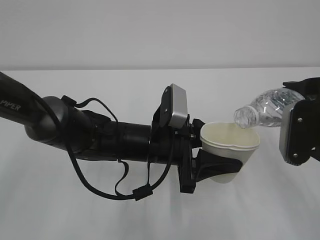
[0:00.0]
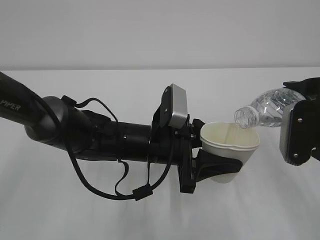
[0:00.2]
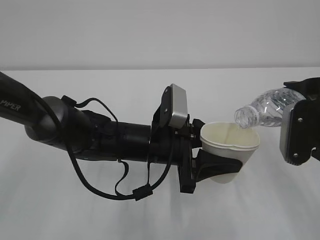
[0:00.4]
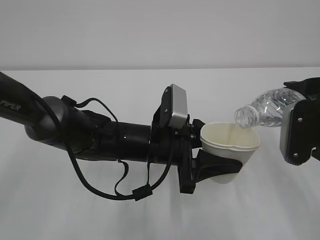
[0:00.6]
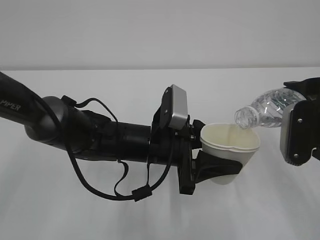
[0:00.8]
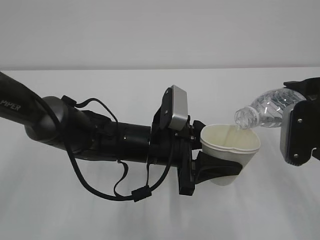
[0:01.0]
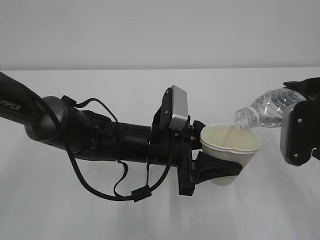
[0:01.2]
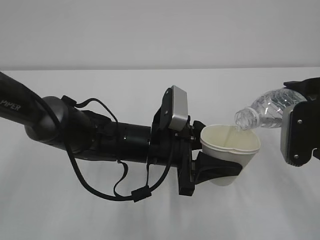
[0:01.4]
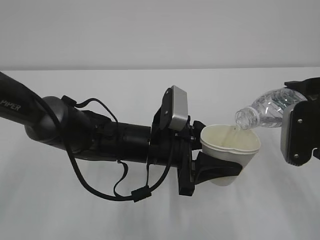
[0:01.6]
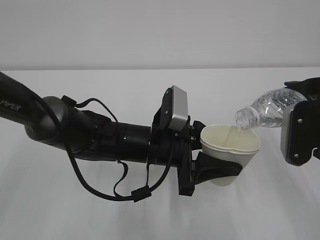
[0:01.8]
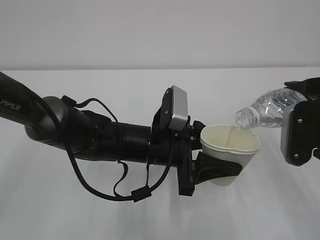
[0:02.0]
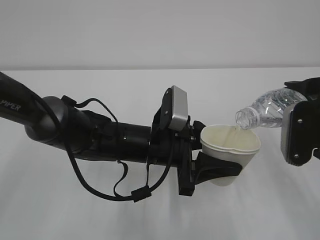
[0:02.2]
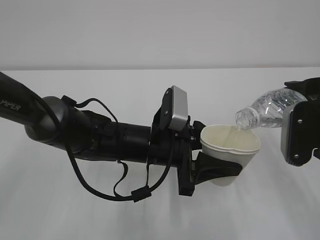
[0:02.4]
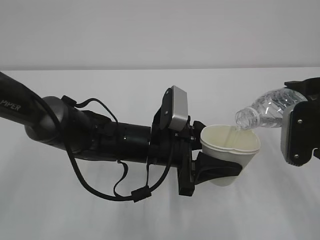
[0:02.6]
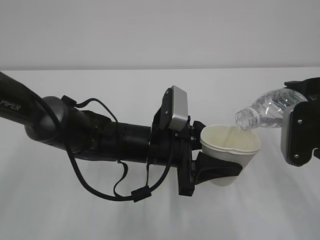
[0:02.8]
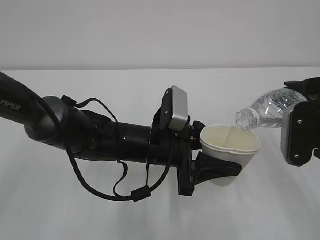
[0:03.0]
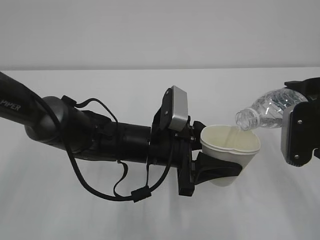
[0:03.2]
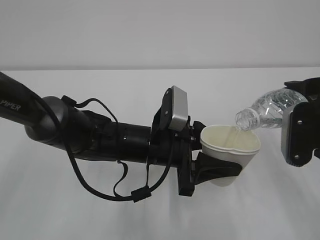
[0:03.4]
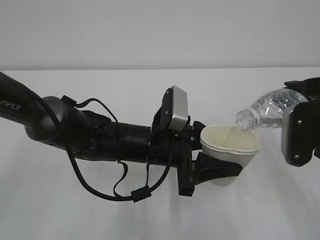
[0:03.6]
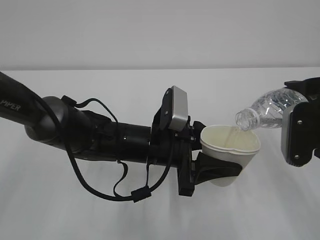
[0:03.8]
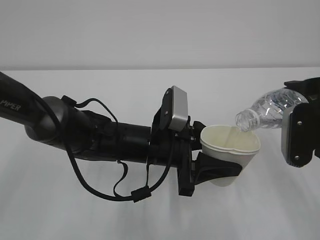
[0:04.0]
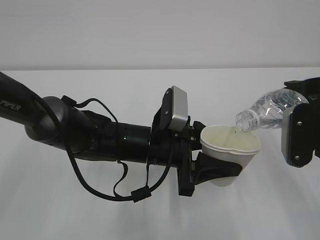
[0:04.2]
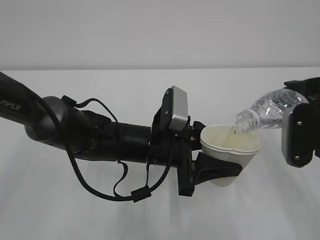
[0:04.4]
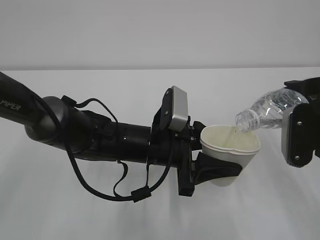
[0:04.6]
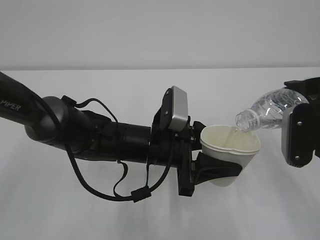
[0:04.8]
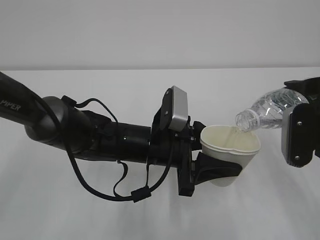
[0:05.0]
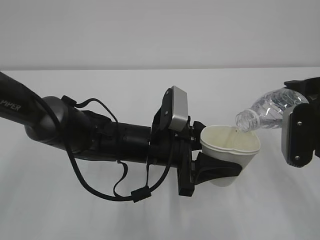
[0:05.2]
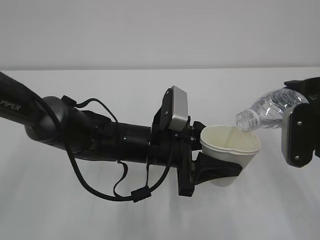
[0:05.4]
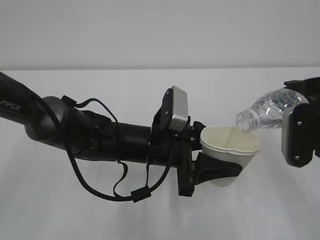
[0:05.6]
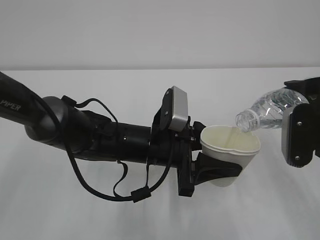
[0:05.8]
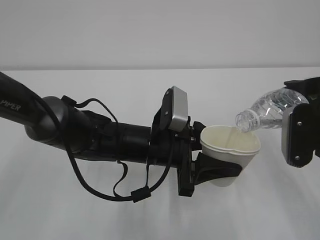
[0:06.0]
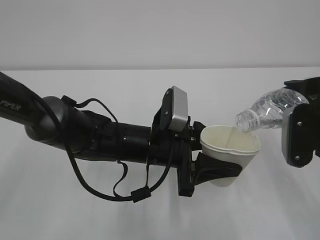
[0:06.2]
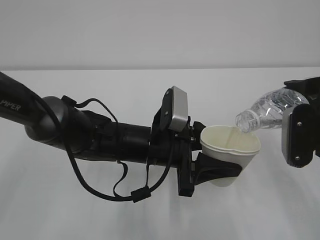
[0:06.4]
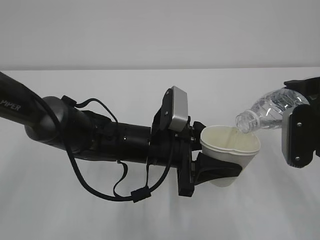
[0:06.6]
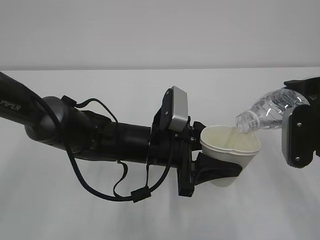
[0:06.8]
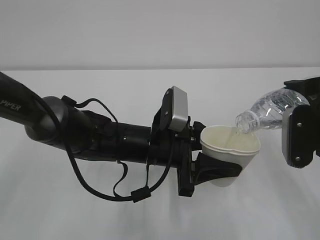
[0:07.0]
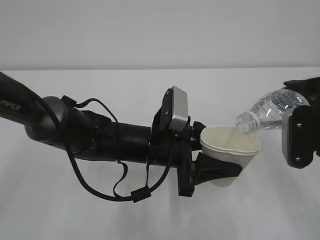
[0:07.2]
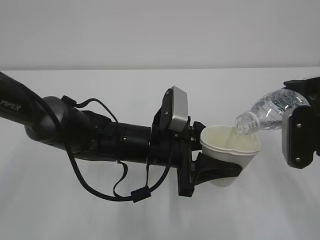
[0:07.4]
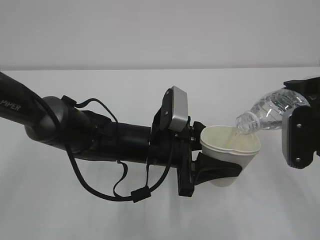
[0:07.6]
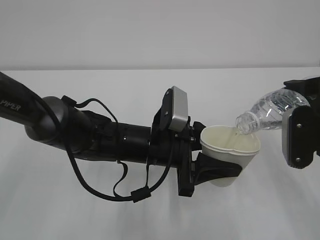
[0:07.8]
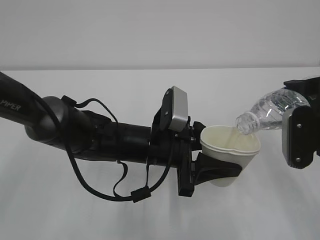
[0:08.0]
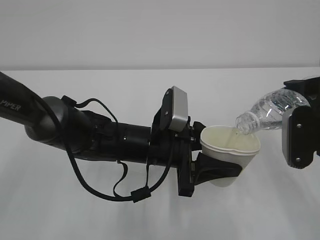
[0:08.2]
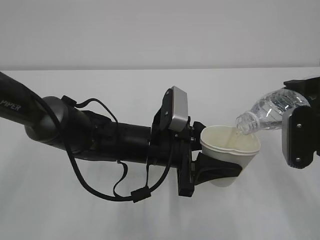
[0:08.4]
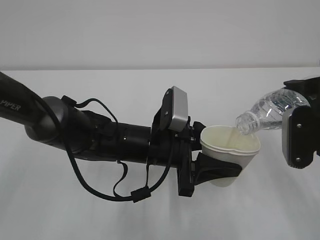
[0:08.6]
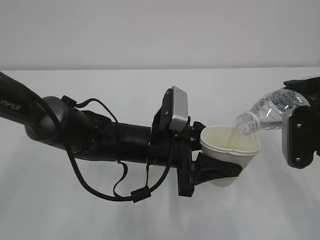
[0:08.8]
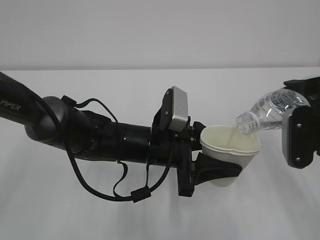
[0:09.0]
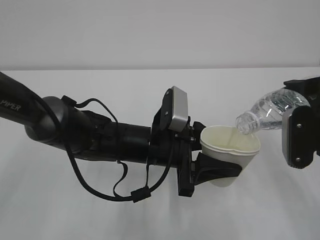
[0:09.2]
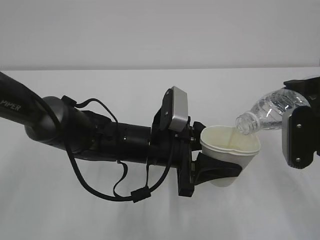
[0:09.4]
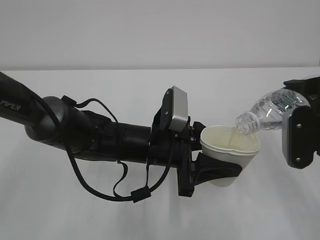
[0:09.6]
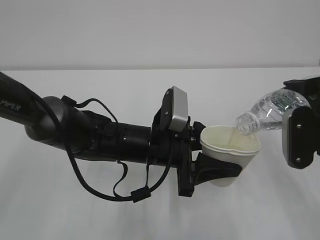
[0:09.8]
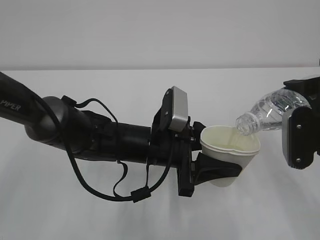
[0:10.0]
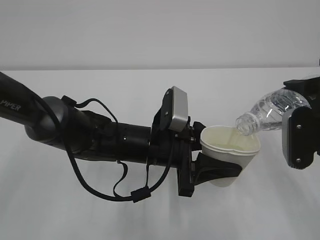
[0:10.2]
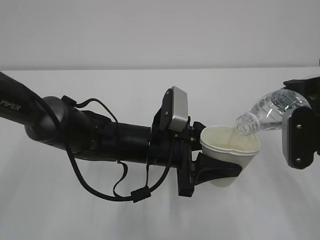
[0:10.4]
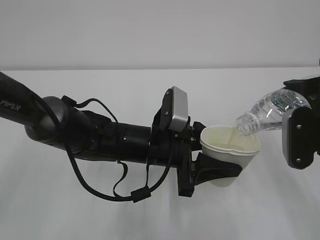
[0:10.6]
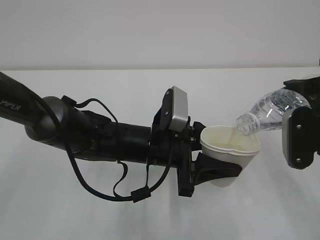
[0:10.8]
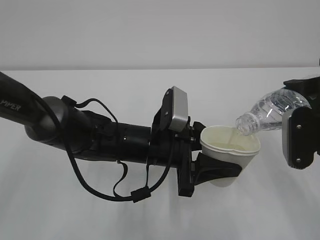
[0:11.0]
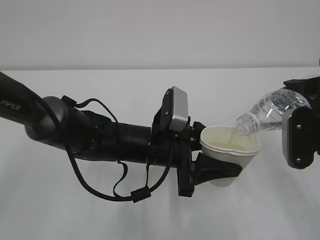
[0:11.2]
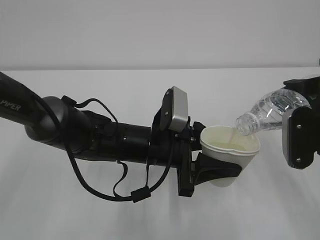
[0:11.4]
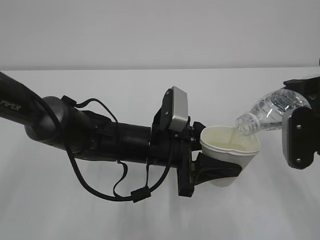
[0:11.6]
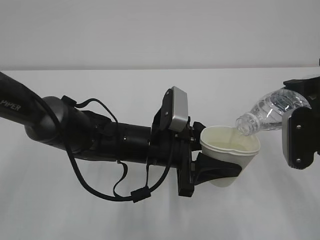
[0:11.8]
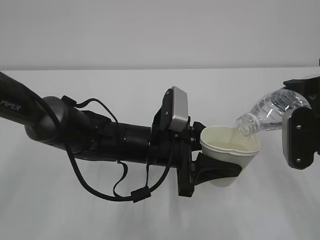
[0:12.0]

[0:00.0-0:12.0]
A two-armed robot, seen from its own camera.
0:00.0 to 0:06.0: Neither gripper changes place.
0:06.0 to 0:12.0: The two grippers keep their place.

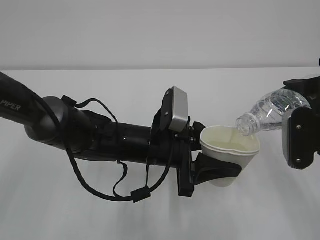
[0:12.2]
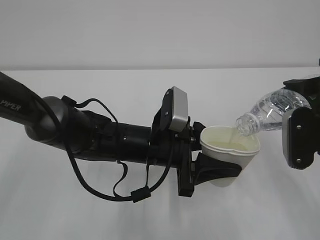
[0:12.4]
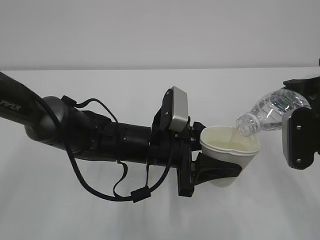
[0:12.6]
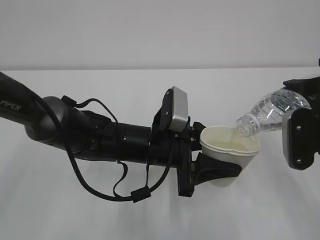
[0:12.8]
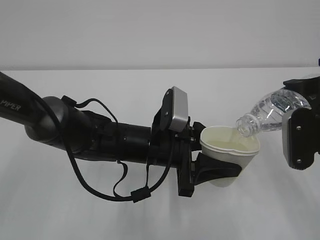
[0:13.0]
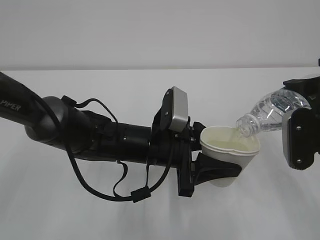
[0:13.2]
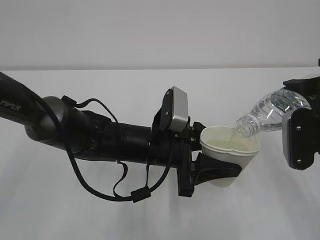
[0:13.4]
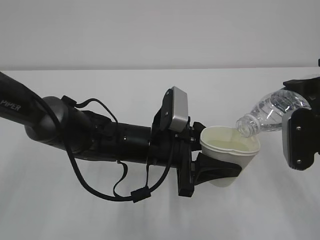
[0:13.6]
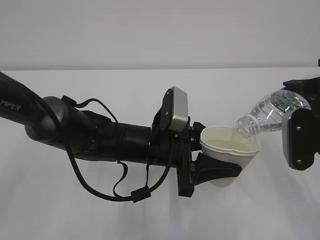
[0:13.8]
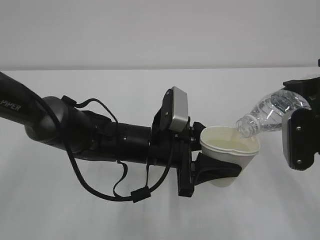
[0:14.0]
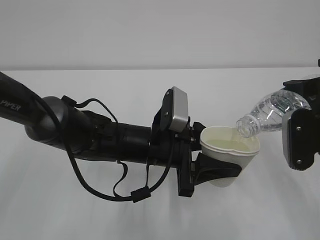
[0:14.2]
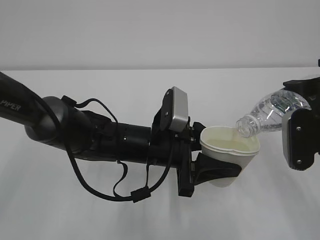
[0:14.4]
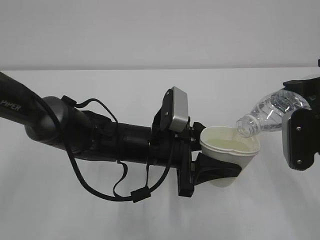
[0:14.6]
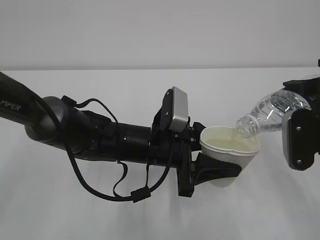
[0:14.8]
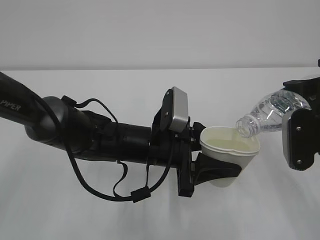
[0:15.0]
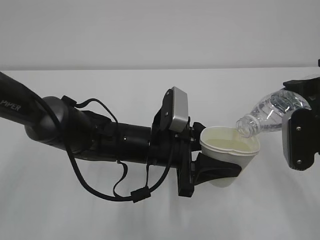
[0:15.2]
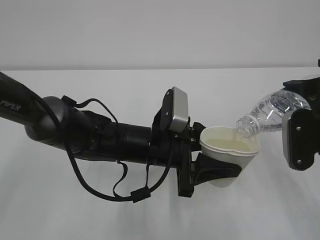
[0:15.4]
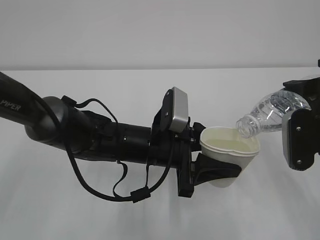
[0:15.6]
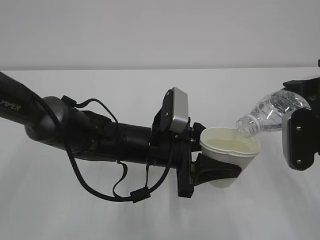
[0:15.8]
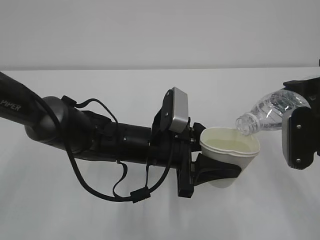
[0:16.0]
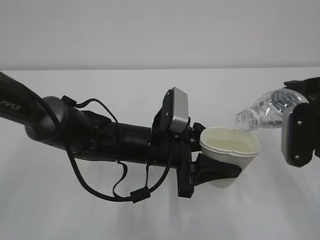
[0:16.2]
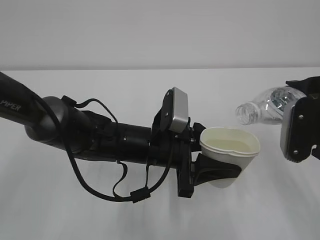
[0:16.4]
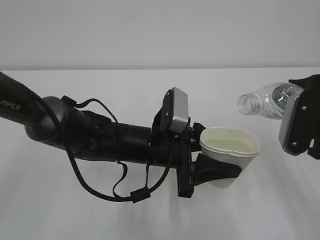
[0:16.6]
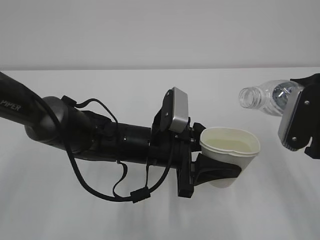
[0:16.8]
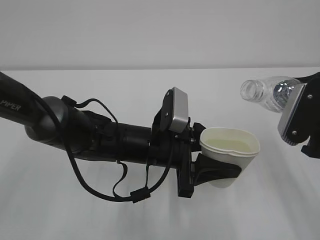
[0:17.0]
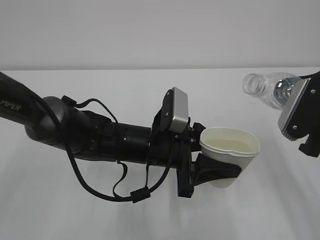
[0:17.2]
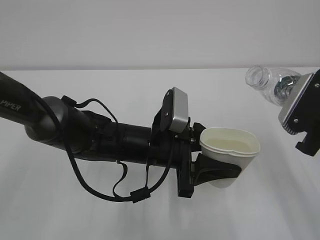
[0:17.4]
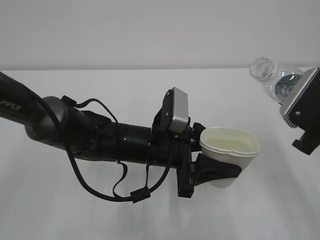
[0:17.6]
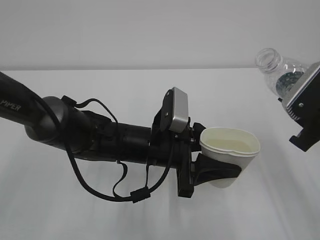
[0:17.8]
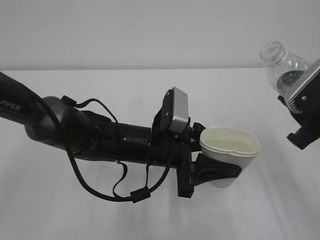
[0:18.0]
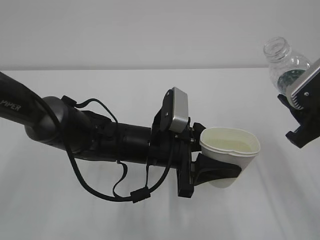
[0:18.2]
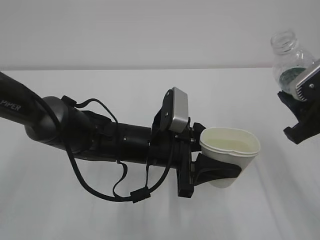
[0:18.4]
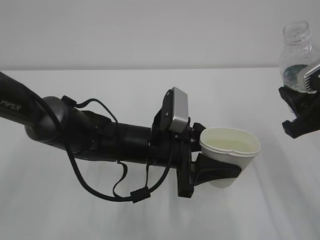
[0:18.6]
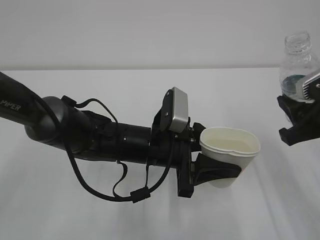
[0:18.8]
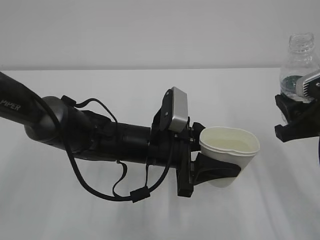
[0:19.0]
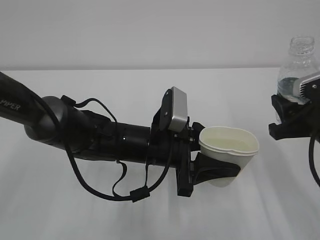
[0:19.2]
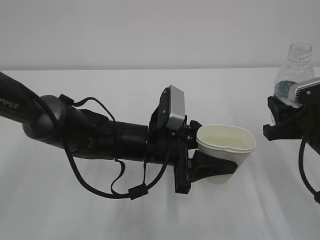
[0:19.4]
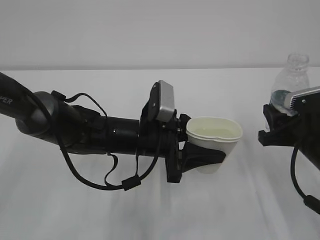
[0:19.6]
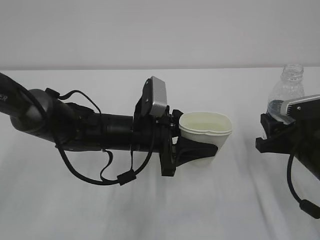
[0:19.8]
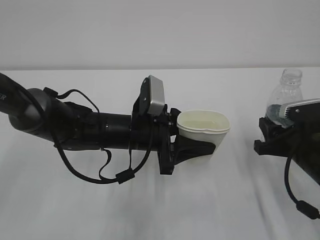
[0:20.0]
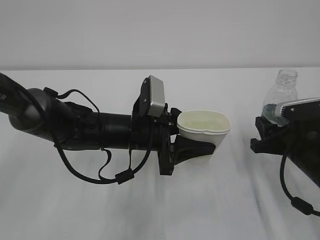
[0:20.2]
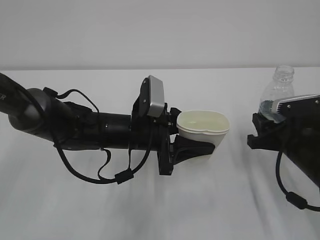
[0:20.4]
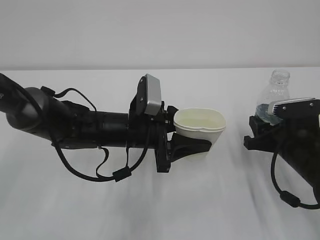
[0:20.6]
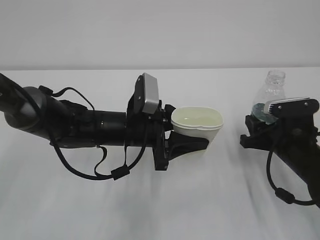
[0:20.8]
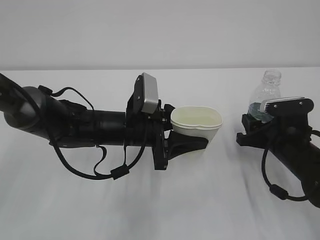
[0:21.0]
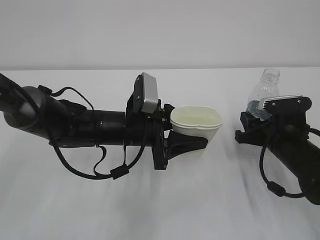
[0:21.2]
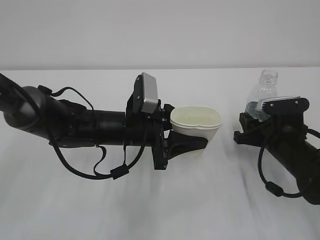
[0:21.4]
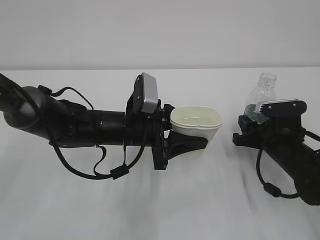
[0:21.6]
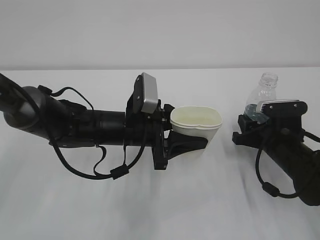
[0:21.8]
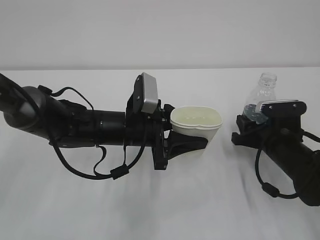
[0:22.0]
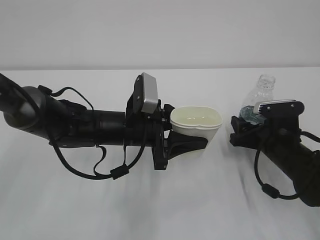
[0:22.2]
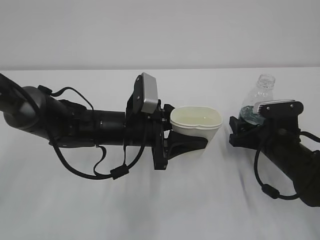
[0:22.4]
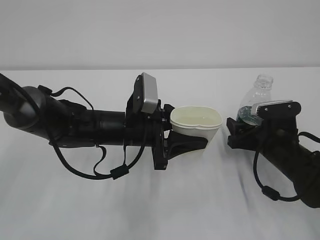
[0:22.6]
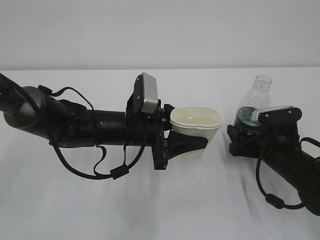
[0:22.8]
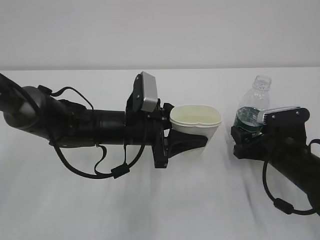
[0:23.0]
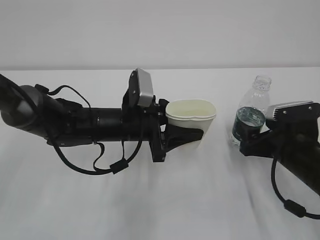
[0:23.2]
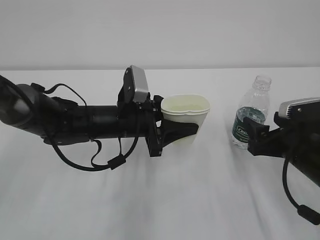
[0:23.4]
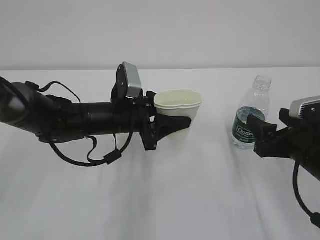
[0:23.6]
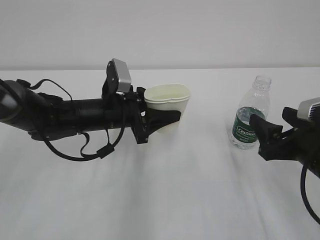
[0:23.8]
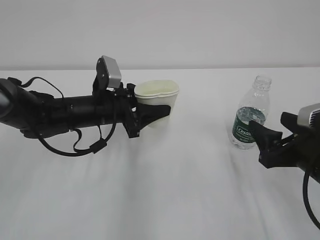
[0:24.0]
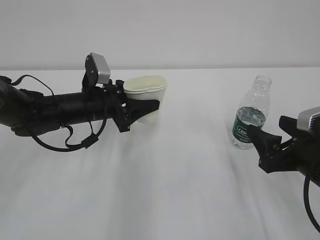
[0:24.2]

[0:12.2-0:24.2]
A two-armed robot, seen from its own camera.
0:12.2 to 0:15.2: The two grippers keep their place.
0:15.2 to 0:16.6: The grippers move only a little.
0:18.2 to 0:19.8: The right gripper moves downward, some 10 cm.
0:19.8 to 0:21.2: The right gripper changes place by approximately 5 cm.
0:21.2 to 0:22.6: The right gripper opens.
0:22.6 to 0:24.2: The left gripper moves to the left and forward, approximately 10 cm. Meanwhile the right gripper moves backward and upward, some 10 cm.
